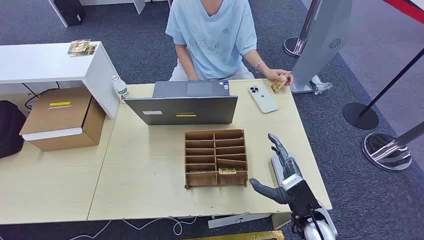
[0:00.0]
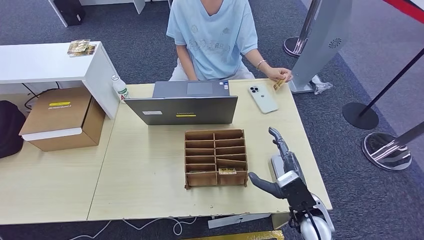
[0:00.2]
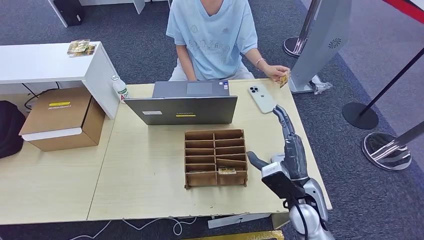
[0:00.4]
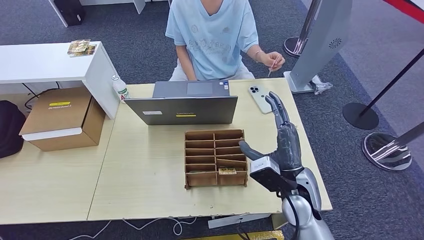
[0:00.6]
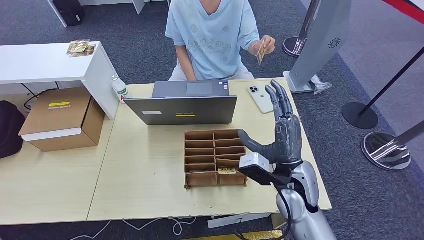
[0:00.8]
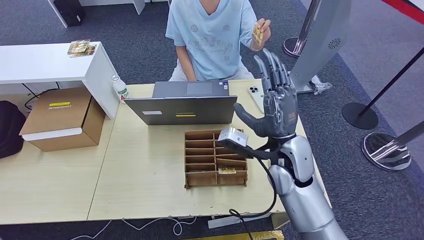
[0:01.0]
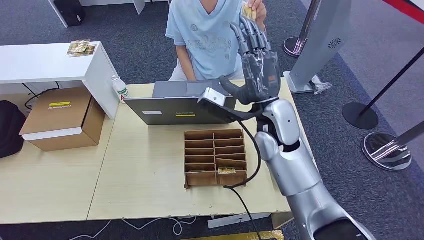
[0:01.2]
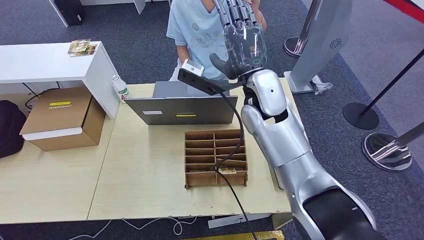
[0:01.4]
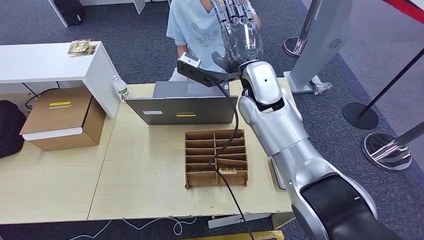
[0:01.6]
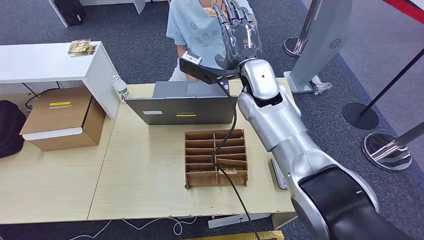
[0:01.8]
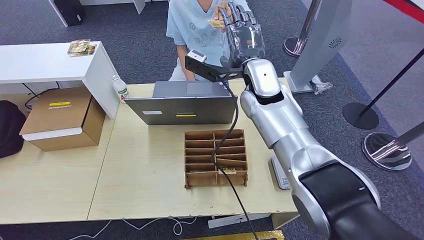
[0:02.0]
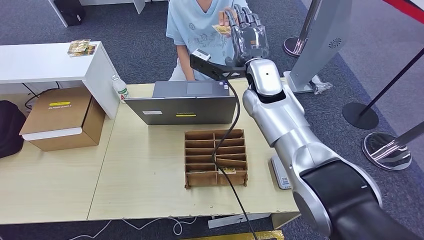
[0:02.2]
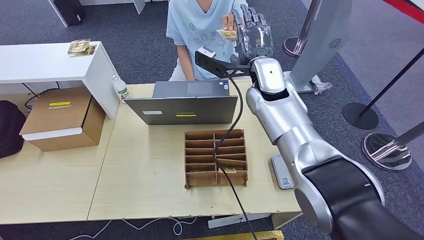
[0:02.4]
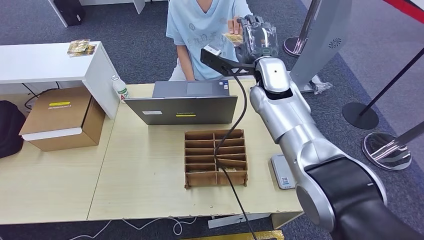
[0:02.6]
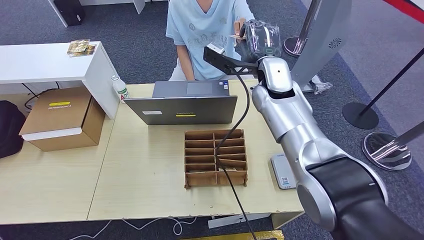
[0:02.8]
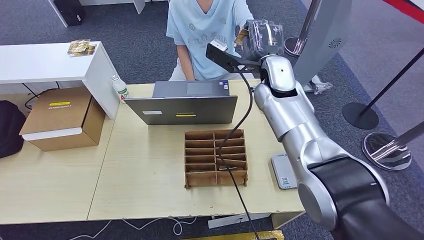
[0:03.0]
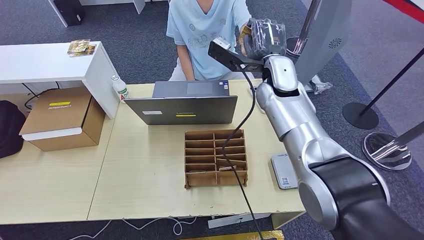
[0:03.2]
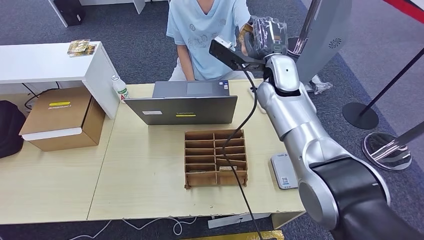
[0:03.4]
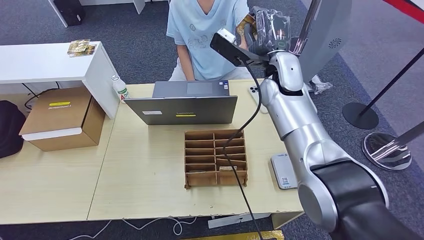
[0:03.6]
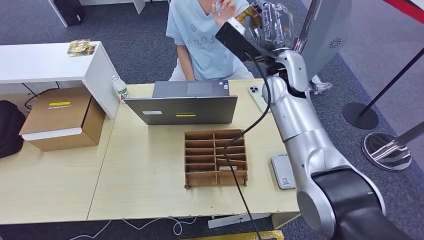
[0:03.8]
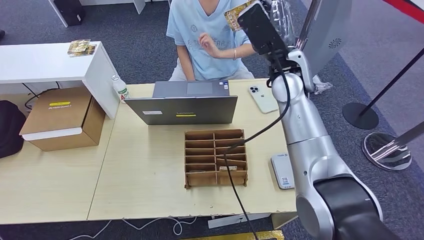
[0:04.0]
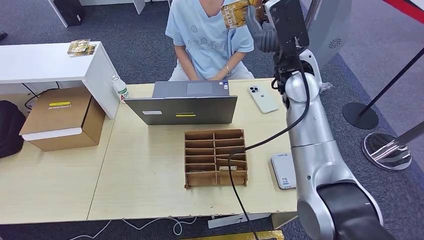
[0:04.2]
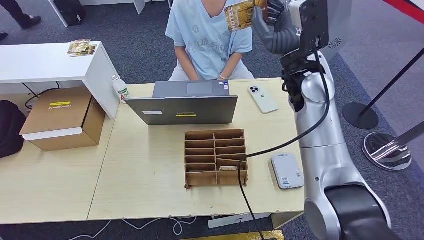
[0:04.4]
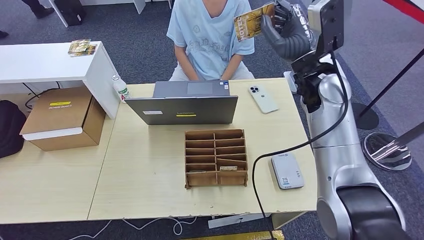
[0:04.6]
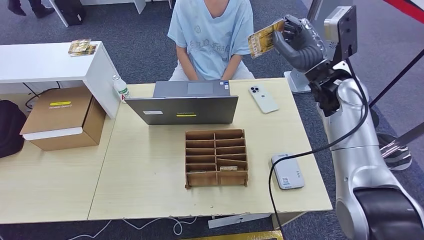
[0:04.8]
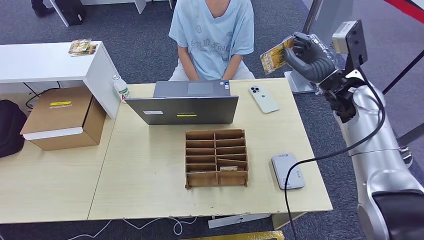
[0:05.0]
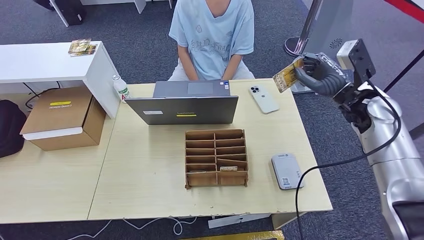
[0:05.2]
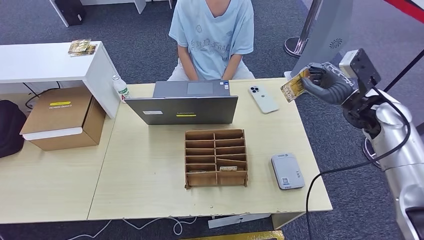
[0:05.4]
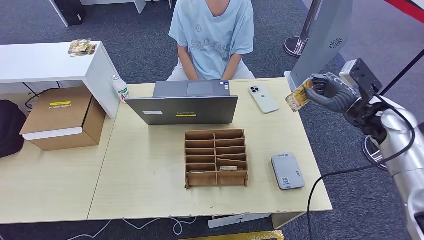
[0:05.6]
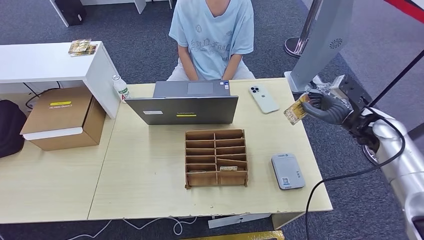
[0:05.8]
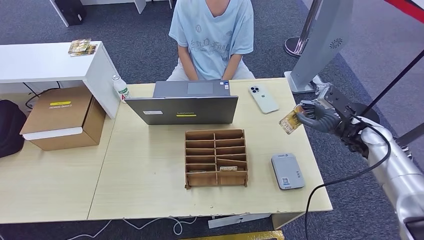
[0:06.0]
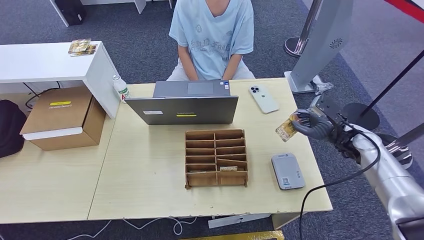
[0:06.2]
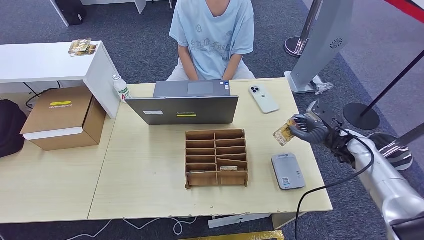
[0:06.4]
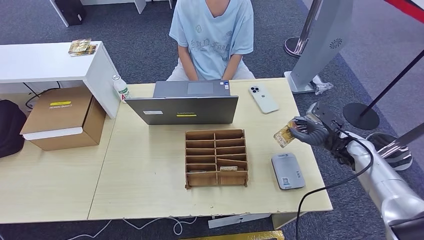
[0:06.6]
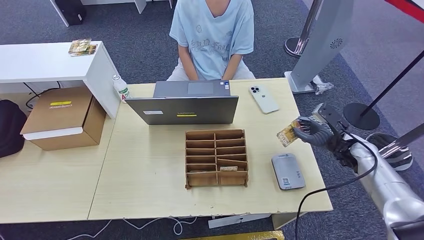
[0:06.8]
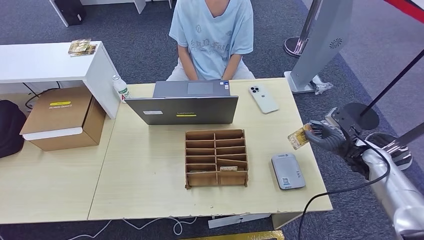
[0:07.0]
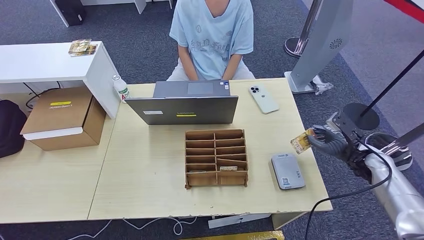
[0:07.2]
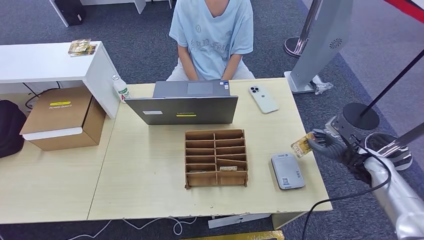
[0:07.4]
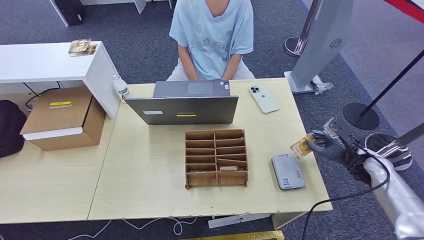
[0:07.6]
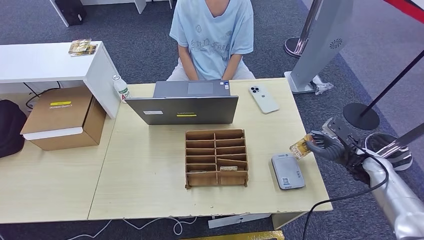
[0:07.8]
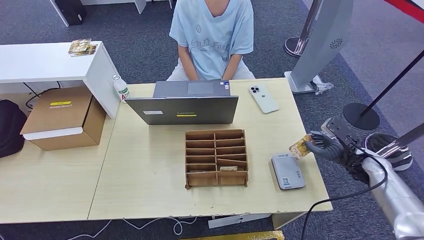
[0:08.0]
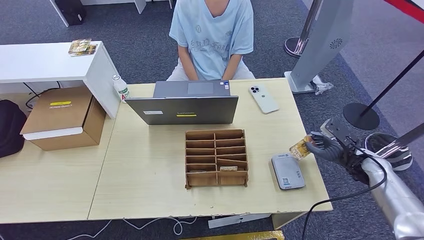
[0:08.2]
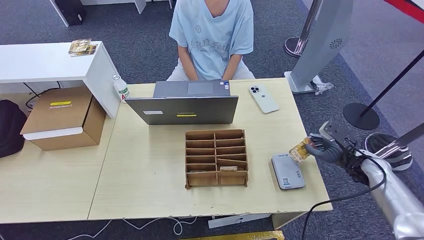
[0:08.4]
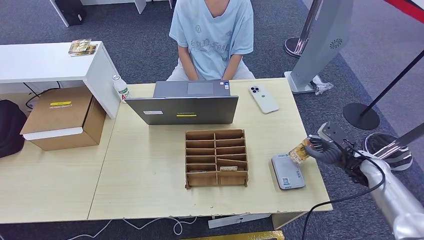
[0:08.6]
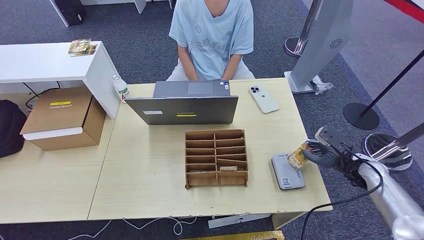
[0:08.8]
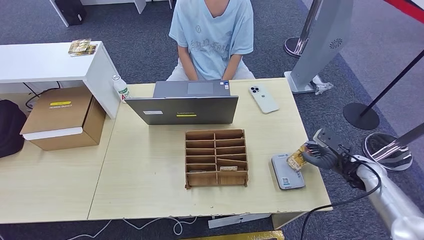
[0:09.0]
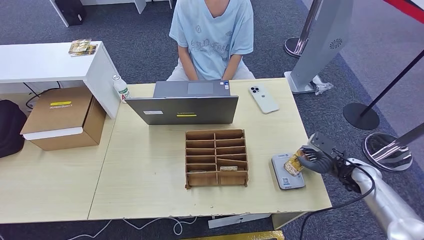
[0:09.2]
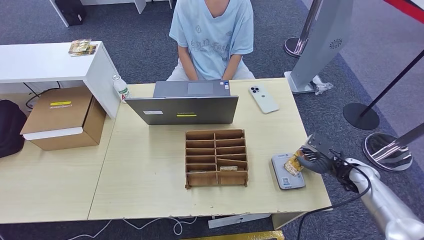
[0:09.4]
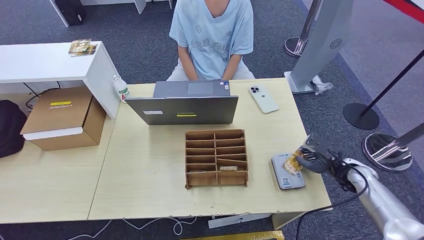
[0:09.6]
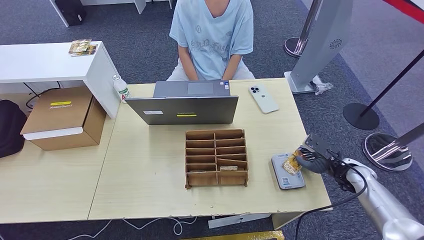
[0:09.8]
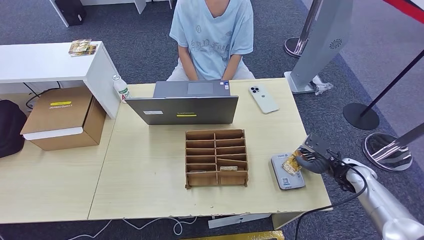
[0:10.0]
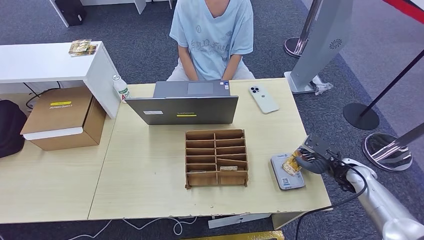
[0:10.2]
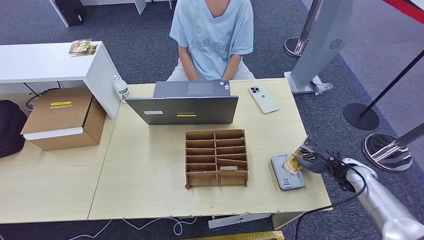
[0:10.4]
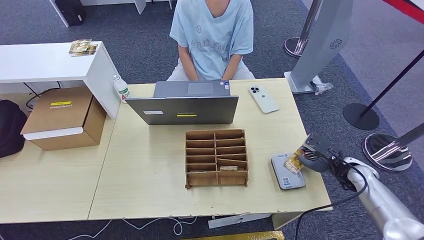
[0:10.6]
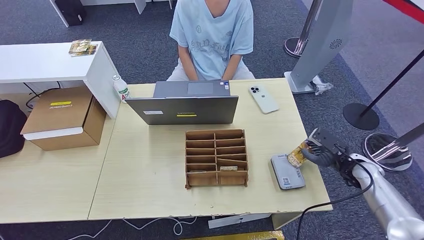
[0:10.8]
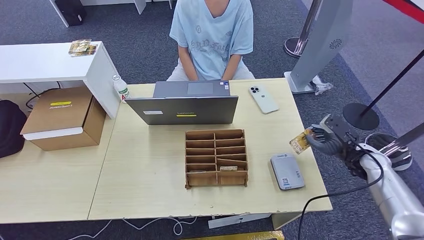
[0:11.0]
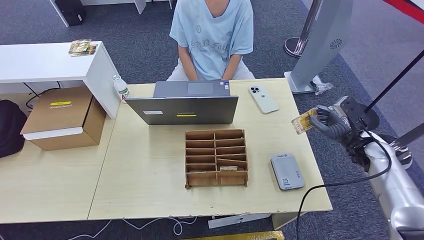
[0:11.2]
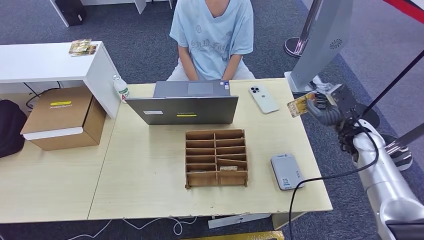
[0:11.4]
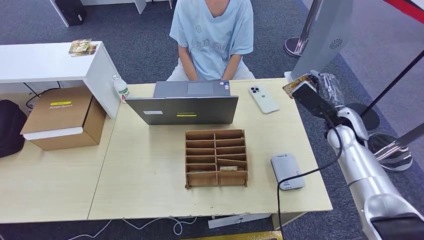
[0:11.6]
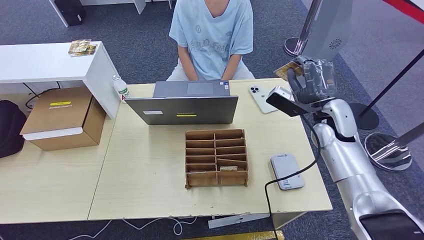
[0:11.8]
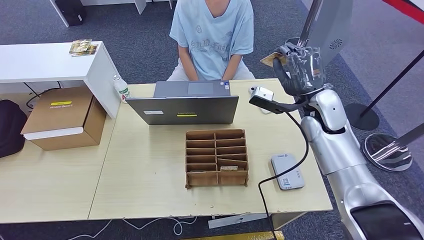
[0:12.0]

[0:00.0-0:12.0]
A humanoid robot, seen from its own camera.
Step, 0.0 to 3.8 s: Take the ID card from the person's hand.
Step, 4.2 to 9.2 s: Place the ID card on the card reader.
1.6 to 3.0 s: The right hand shifts roughly 5 cm to the right.
3.0 to 4.4 s: The right hand changes place by some 5 cm.
6.0 to 7.6 s: The right hand travels downward by about 10 cm.
7.6 to 10.4 s: The hands stay close to where they were, moving slightly.
10.4 to 12.0 s: The right hand is displaced upward, to the left and forward by roughly 25 cm.

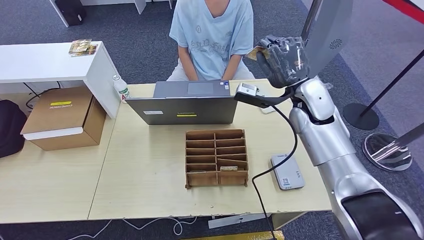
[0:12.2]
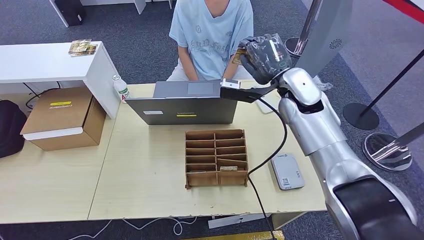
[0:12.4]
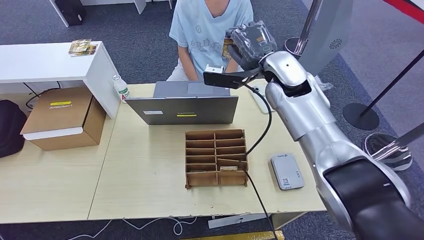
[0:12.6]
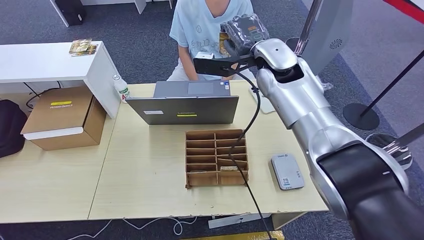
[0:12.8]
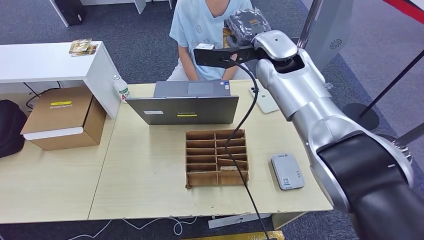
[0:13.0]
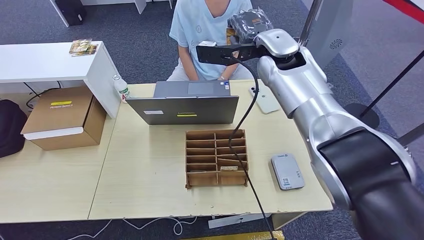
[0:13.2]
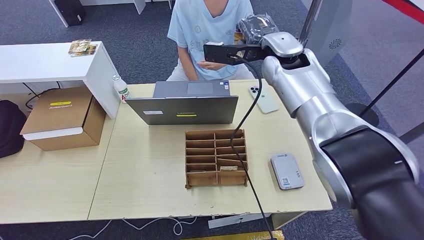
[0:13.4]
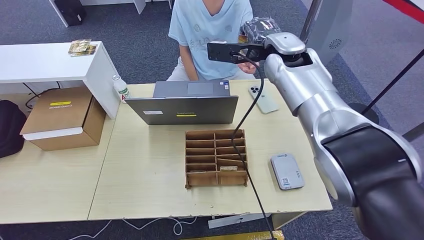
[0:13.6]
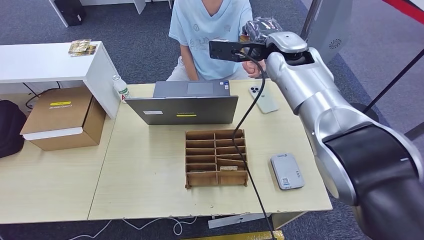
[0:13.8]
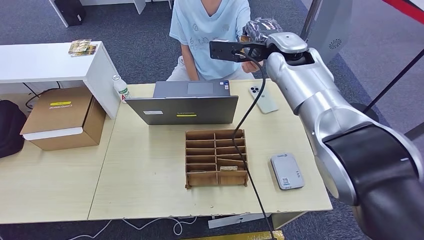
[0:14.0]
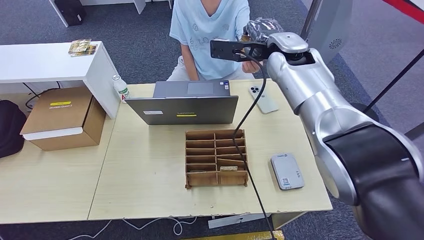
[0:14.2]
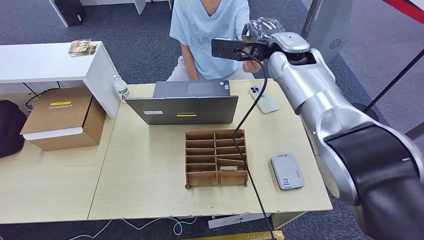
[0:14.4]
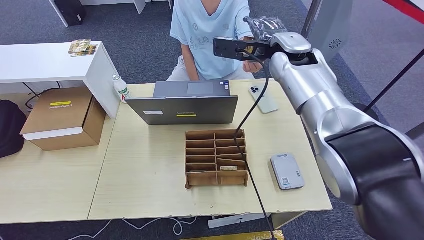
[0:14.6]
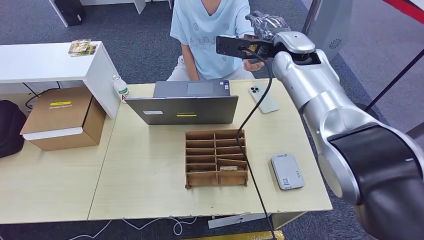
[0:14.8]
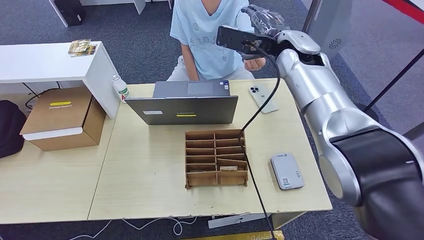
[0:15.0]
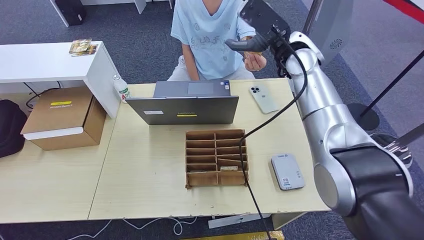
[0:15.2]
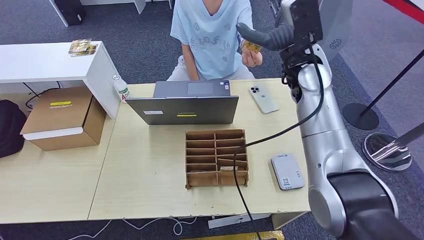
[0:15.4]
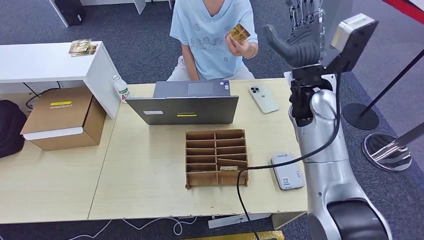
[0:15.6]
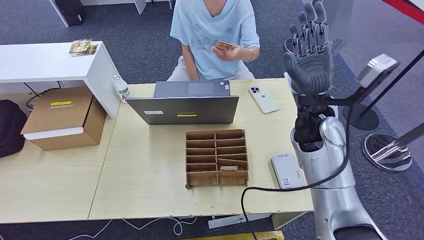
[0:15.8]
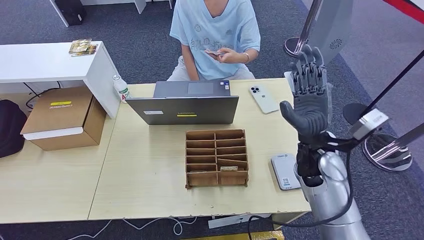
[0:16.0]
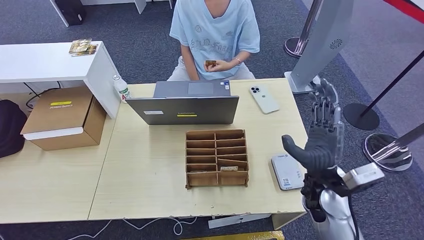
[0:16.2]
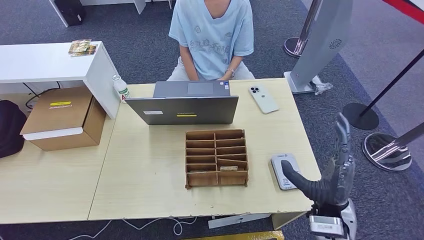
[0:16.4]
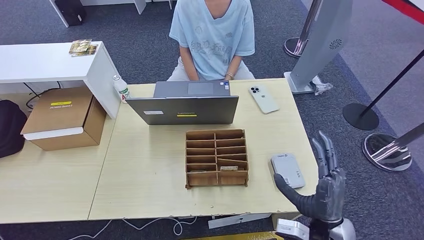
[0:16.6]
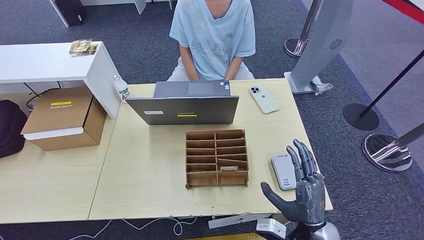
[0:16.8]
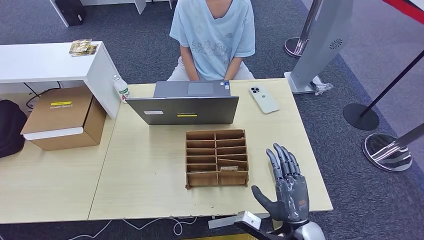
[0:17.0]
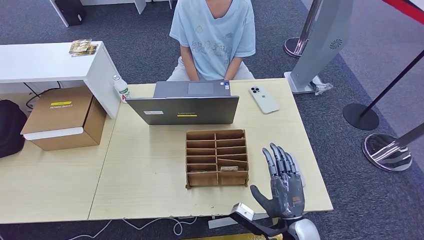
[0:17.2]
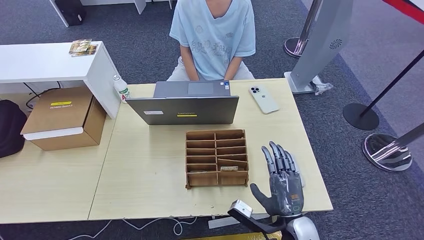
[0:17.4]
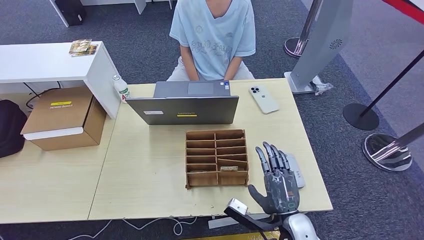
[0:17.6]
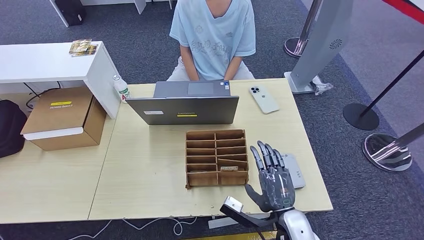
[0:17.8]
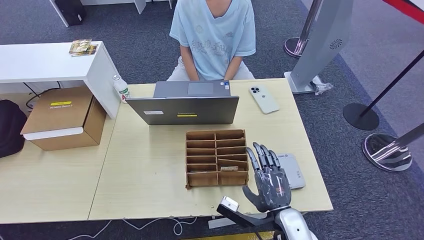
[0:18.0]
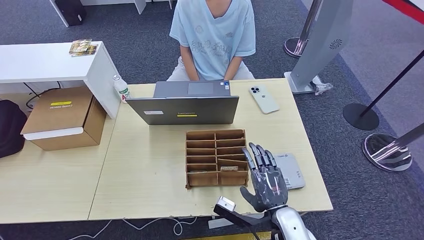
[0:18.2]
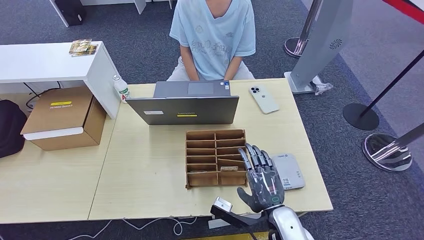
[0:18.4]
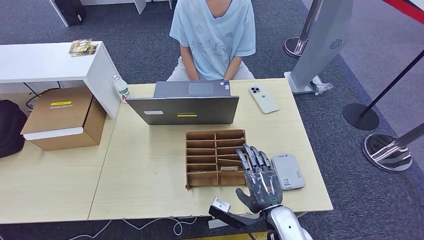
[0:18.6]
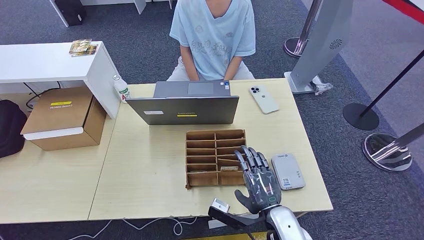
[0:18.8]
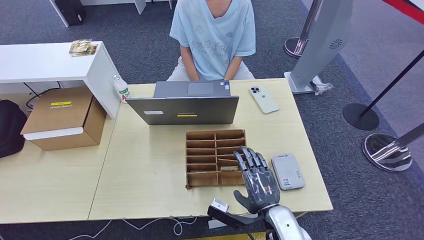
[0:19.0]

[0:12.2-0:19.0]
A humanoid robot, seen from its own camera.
Step, 12.2 to 16.0 s: Hand the ID card to the person.
12.2 to 13.6 s: The right hand goes about 15 cm upward, to the left and forward.
13.6 to 15.0 s: The hands stay close to where they were, moving slightly.
15.0 to 16.2 s: The right hand is displaced backward and downward by some 30 cm.
16.2 to 17.6 s: The right hand travels backward, downward and to the left by about 15 cm.
17.6 to 19.0 s: The hands make only small movements.
